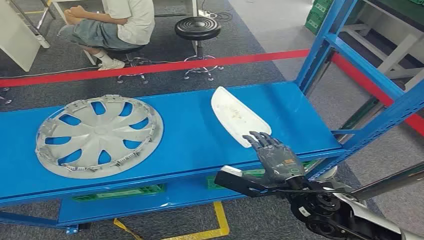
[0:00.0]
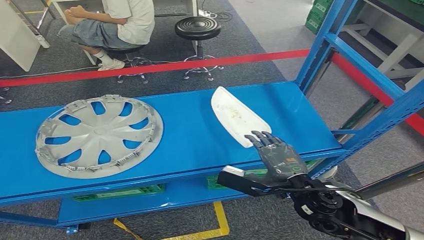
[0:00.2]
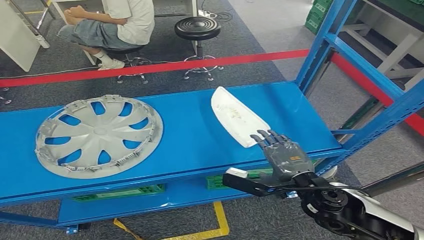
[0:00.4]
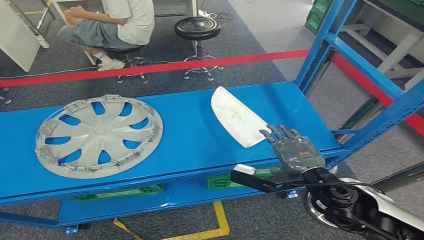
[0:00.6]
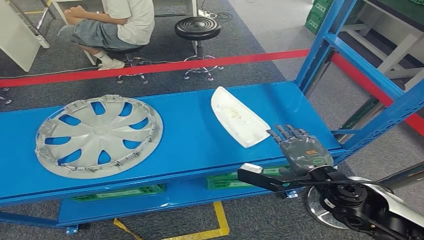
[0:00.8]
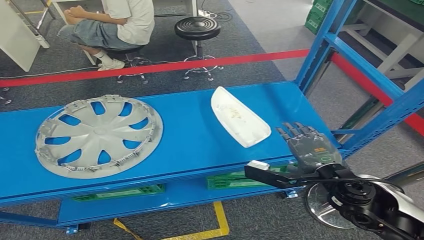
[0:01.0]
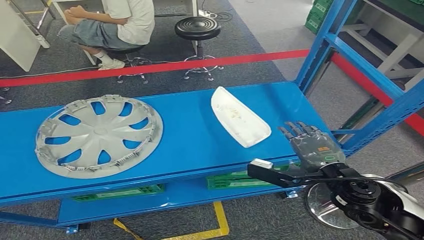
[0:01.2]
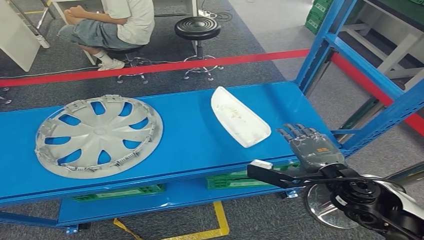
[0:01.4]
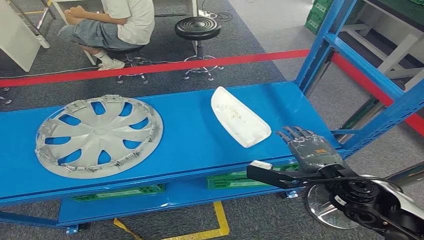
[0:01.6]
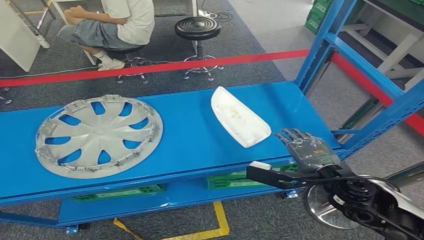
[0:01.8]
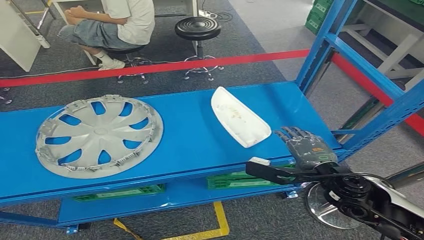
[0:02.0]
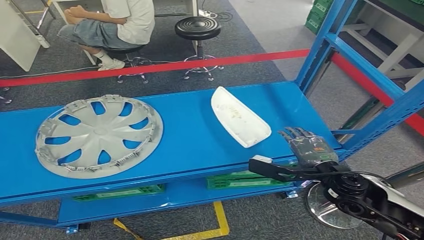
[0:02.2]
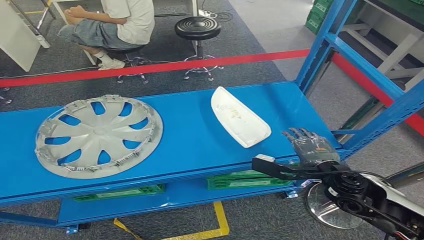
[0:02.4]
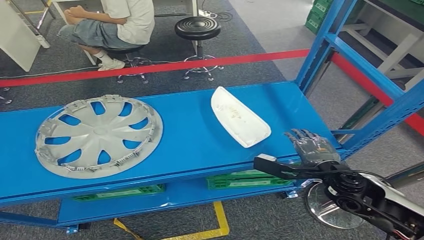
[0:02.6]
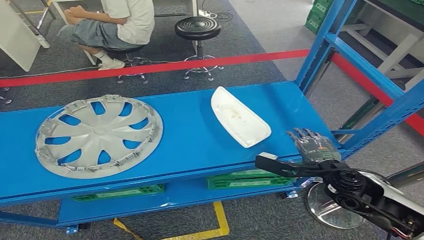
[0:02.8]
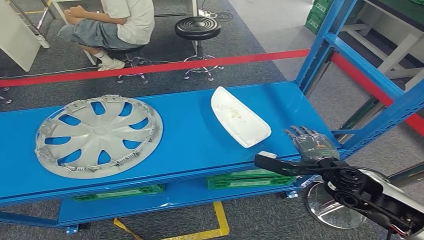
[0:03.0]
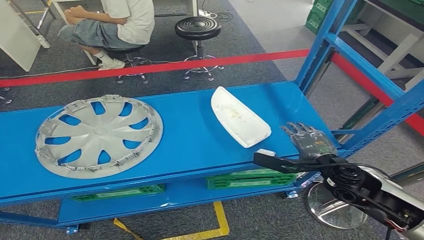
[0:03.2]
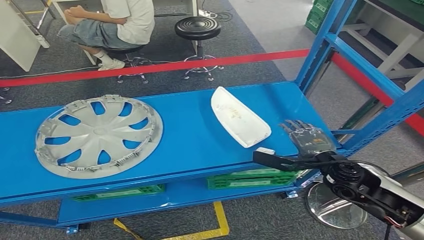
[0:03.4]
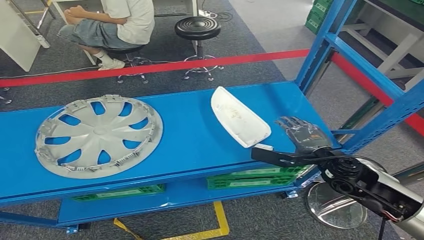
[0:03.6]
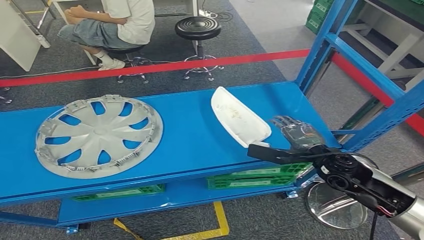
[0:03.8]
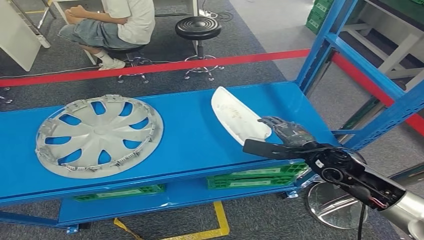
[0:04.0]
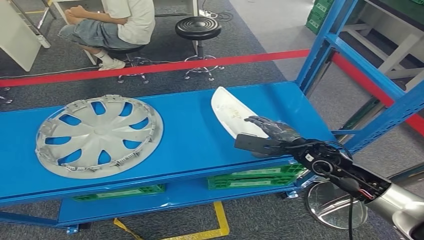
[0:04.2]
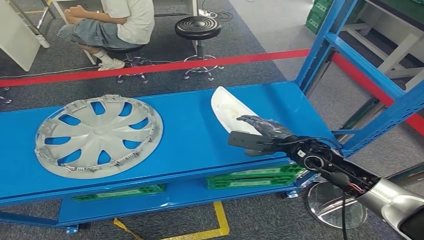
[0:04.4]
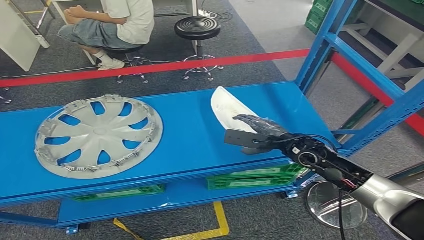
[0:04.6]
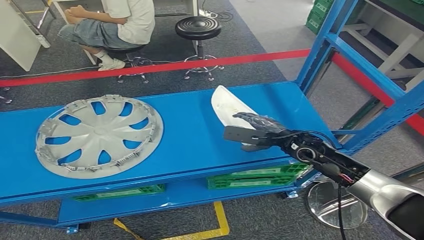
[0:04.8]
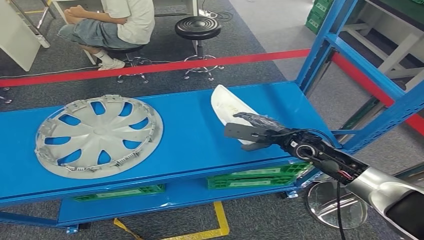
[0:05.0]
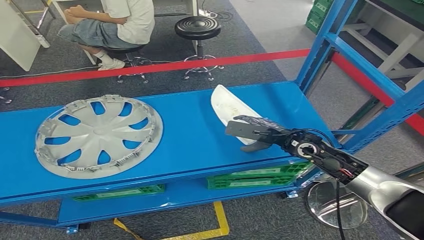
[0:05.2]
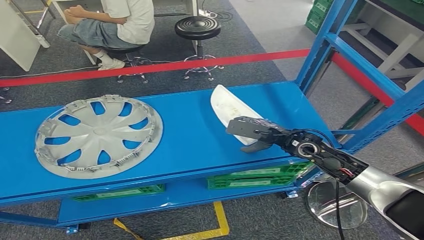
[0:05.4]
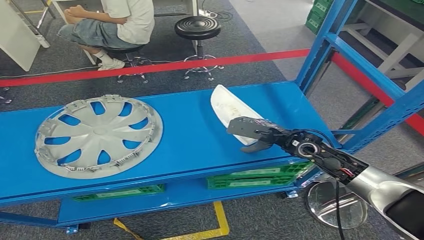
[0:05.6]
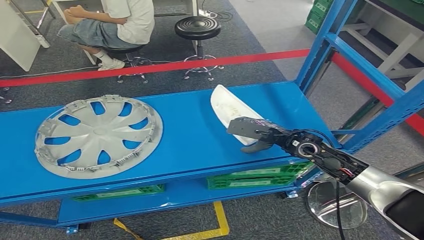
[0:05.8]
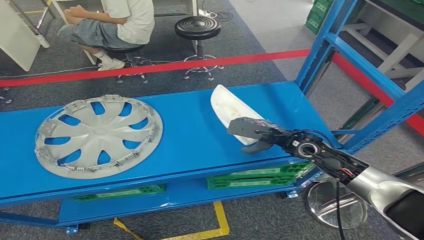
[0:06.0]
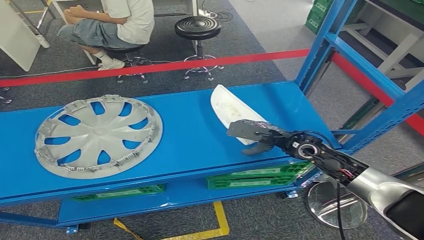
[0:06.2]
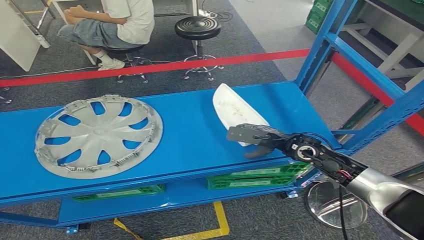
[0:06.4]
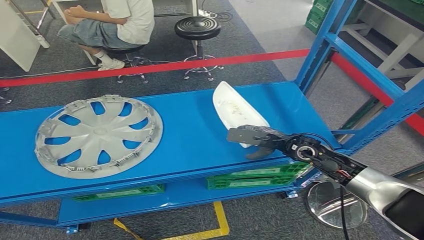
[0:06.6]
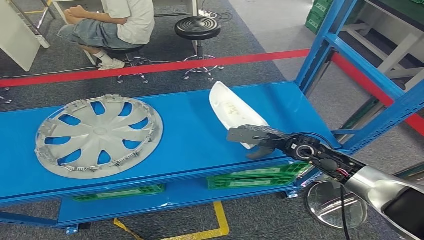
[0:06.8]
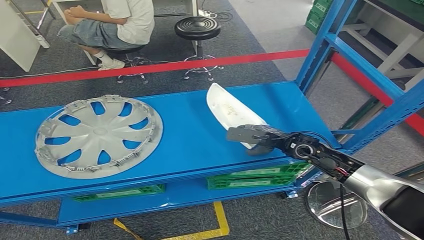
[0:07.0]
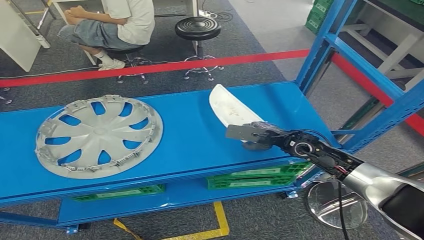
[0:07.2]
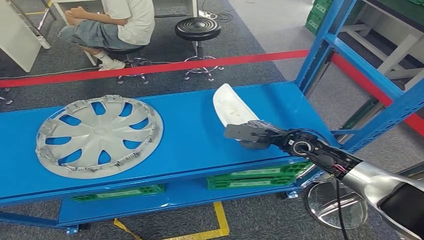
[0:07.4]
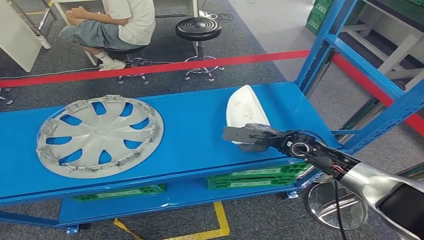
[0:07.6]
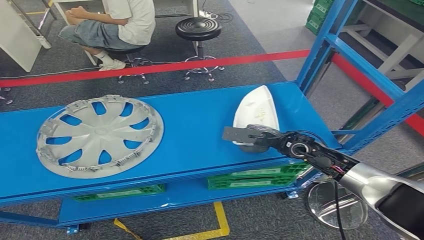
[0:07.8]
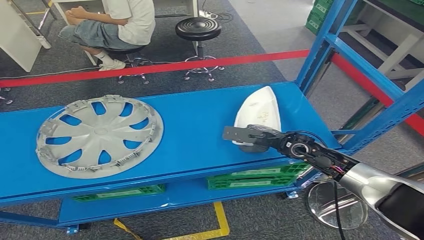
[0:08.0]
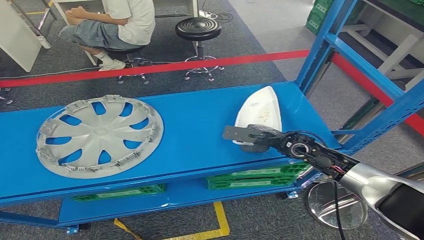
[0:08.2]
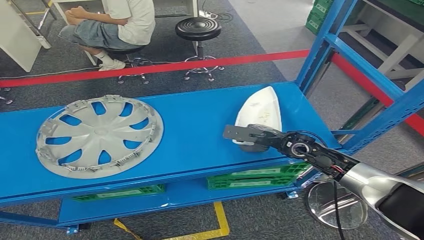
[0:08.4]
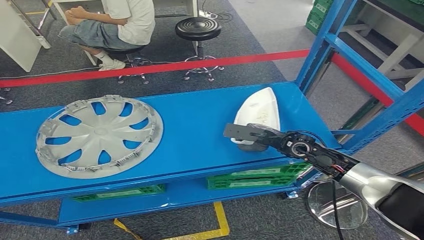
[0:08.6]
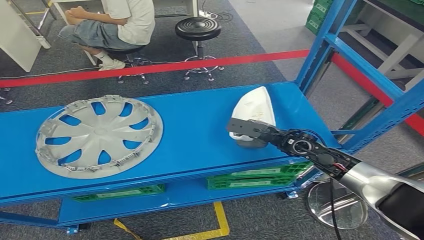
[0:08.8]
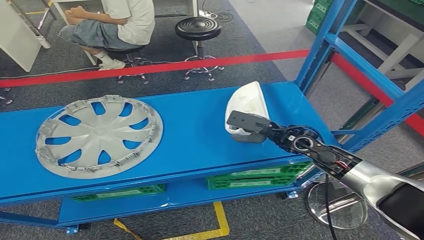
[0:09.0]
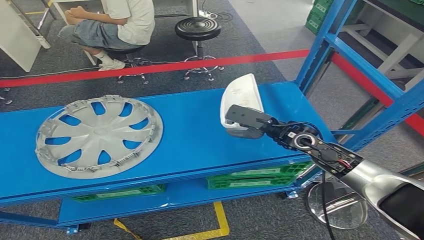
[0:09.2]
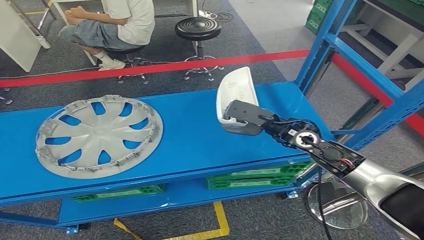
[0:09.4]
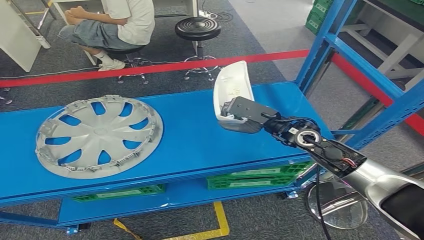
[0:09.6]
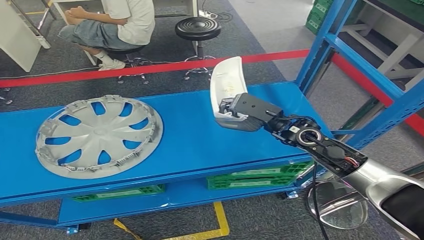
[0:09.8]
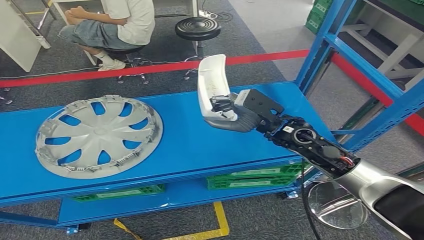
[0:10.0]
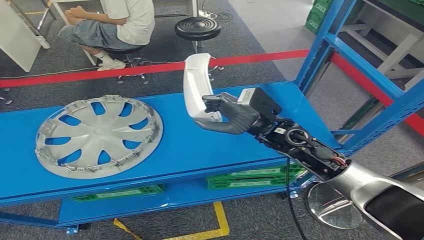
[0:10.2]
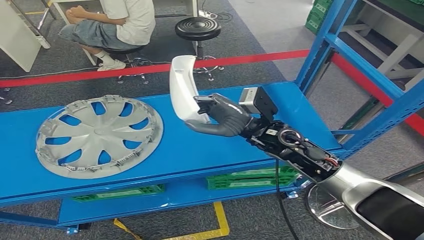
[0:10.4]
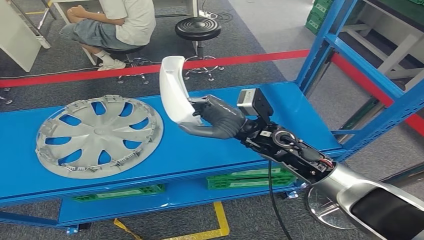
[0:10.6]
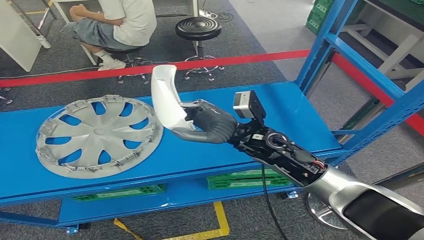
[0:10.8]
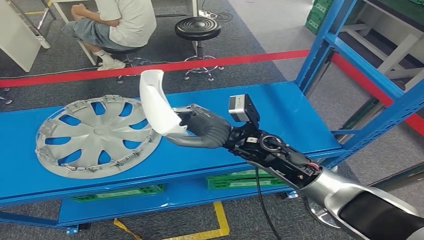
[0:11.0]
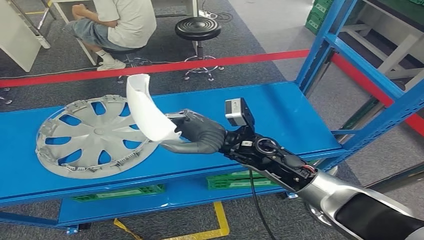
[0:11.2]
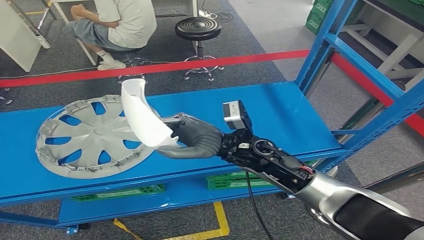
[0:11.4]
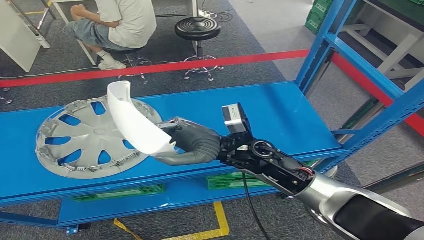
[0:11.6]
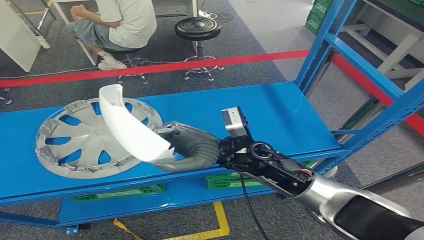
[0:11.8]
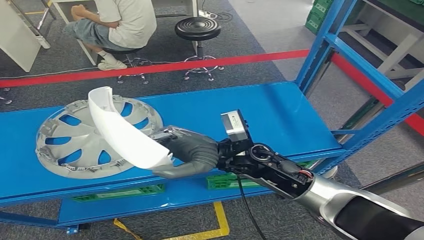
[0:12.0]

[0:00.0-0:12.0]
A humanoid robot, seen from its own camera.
Step, 0:00.0 to 0:09.8: Pick up the small component from the shelf.
0:01.6 to 0:03.0: The right hand heads downward, covering roughly 5 cm.
0:03.0 to 0:04.4: The right hand goes some 10 cm forward.
0:04.4 to 0:09.0: The hands stay close to where they were, moving slightly.
0:09.0 to 0:10.4: The right hand shifts about 10 cm to the left and upward.
0:10.4 to 0:12.0: The right hand heads to the left, covering some 10 cm.

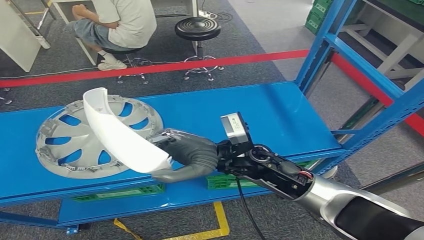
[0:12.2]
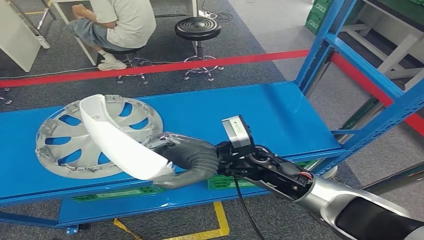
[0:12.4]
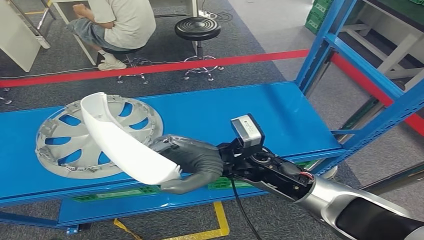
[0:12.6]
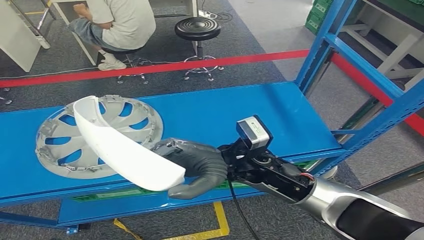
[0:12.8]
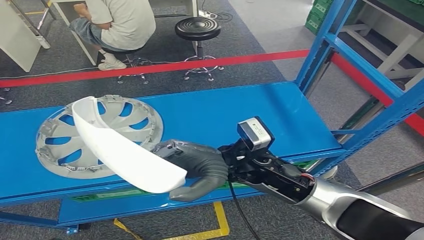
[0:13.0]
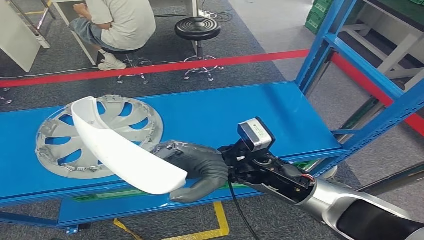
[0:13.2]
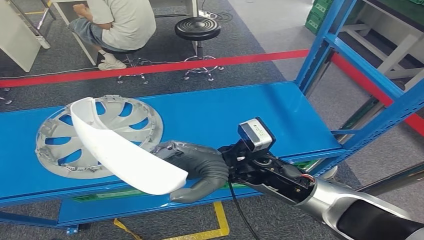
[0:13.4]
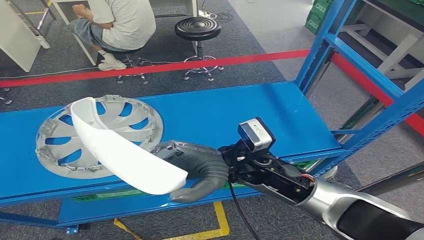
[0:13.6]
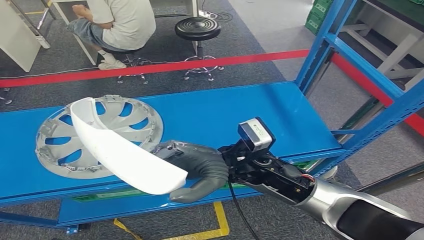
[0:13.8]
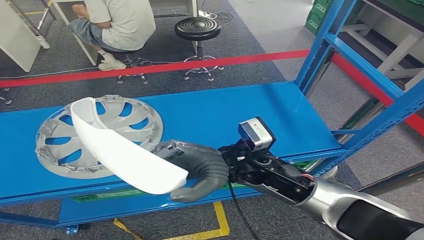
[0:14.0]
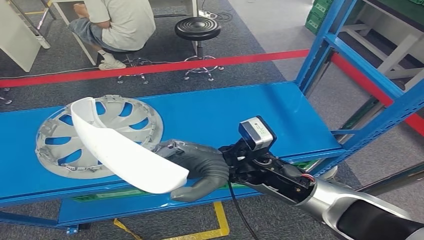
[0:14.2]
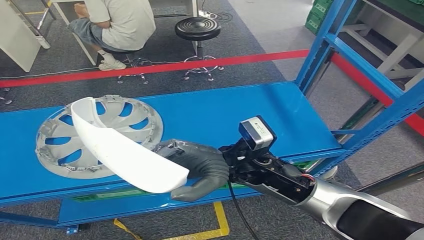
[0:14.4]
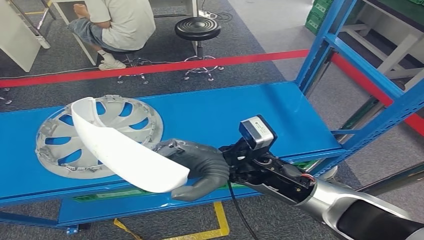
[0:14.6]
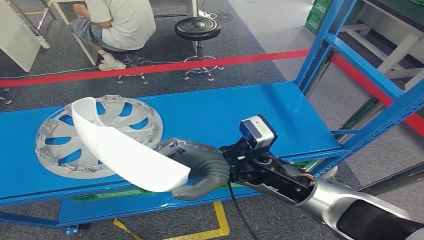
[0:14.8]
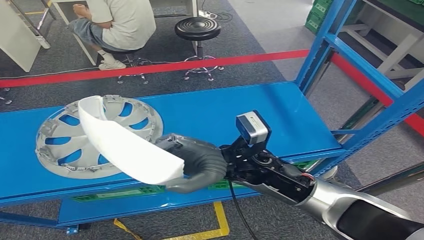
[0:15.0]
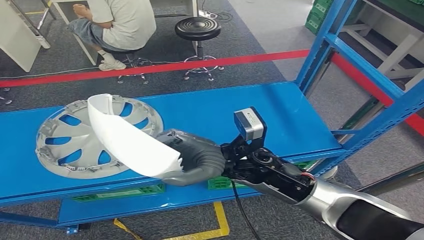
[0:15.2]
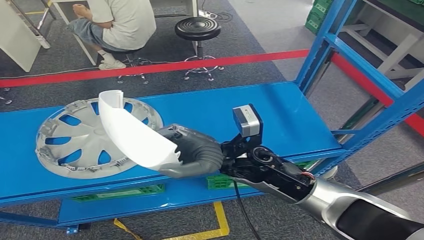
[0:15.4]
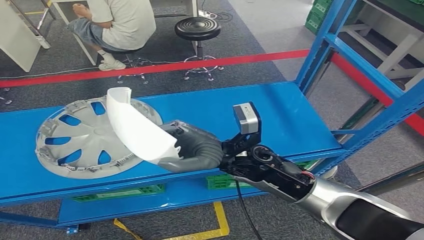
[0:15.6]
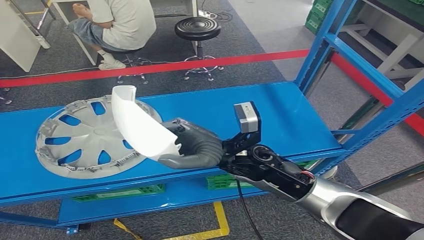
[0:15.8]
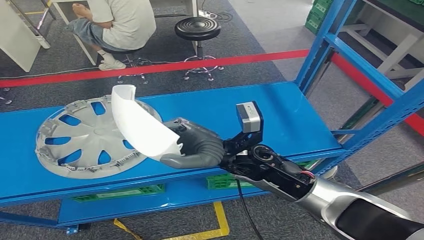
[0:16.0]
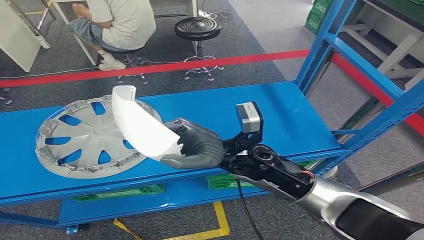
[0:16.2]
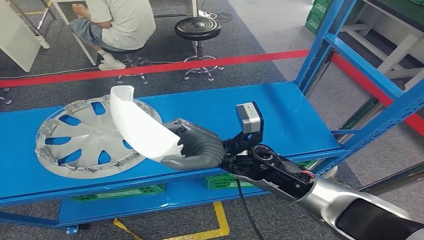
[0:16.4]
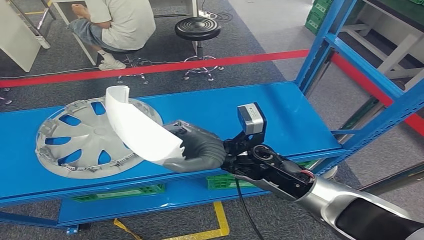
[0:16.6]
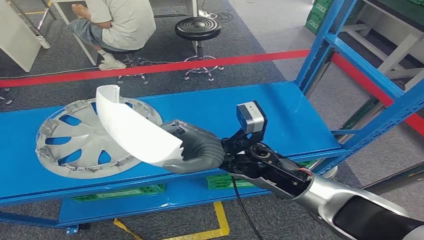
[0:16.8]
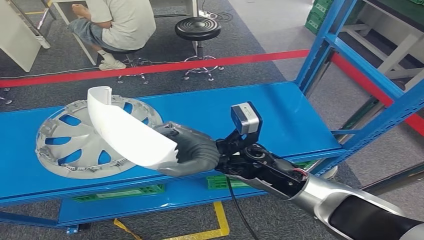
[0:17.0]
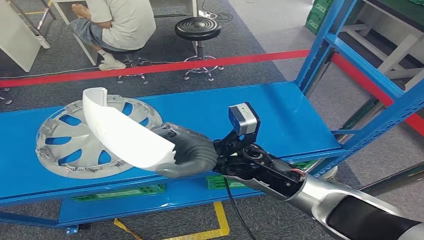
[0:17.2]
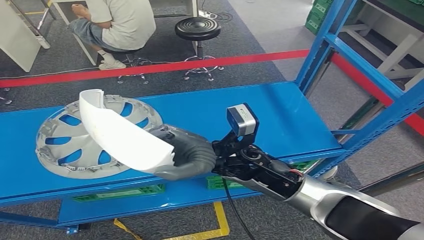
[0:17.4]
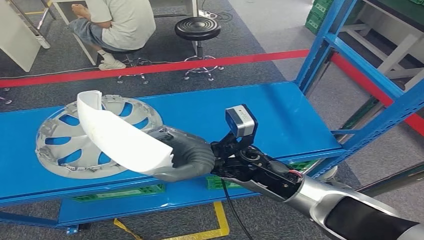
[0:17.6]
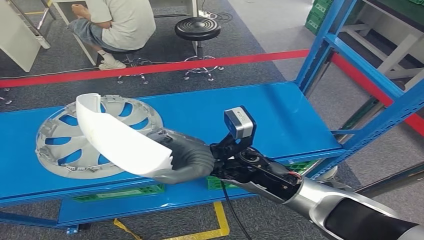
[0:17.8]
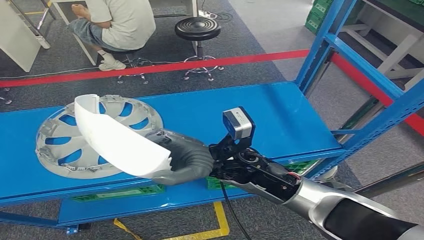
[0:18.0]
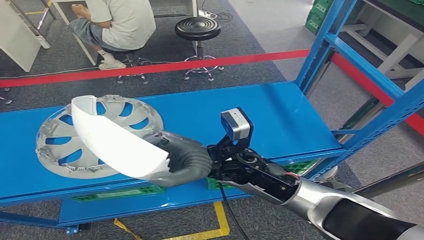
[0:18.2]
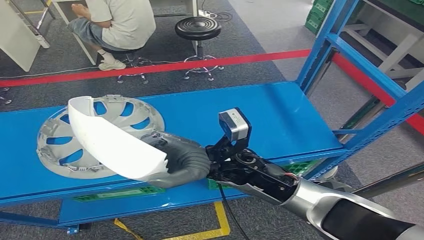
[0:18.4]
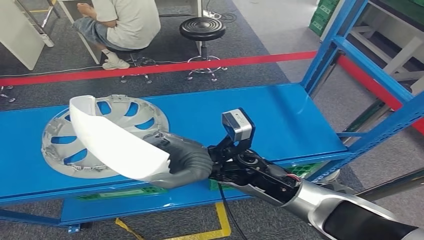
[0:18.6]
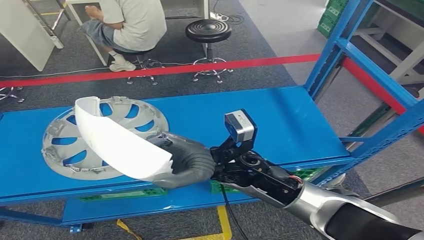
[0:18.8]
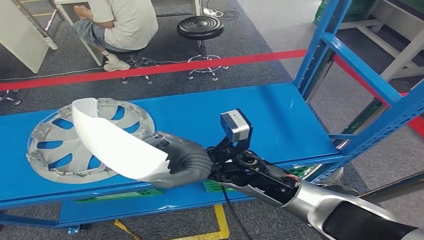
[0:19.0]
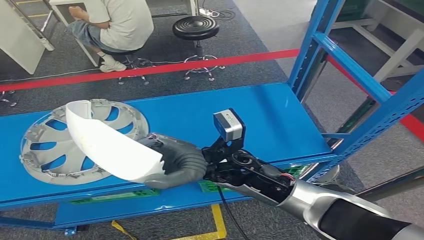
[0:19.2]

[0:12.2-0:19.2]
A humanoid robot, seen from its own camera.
0:12.2 to 0:17.8: There are only small adjustments of the hands.
